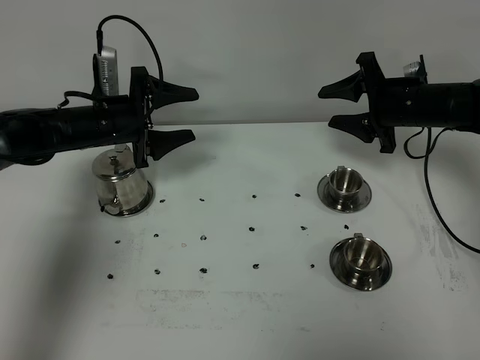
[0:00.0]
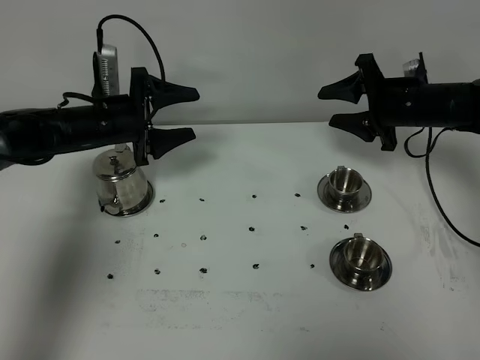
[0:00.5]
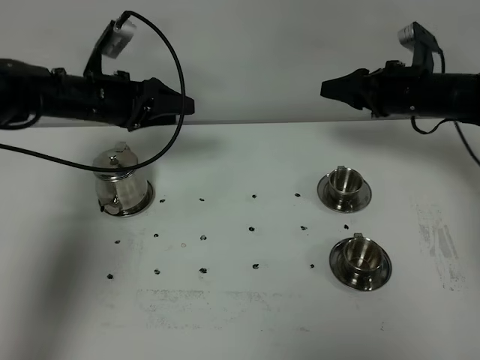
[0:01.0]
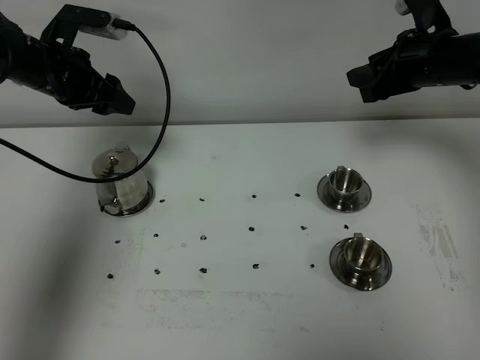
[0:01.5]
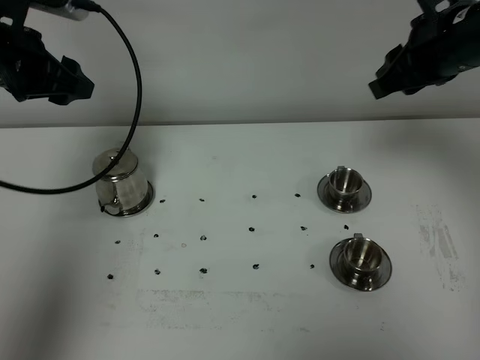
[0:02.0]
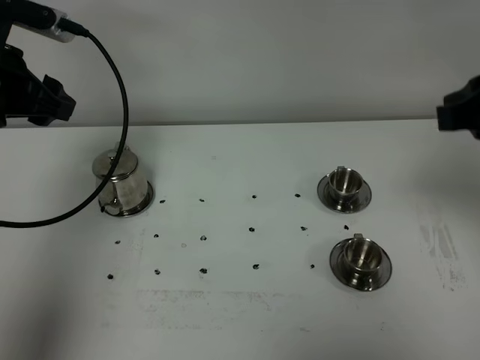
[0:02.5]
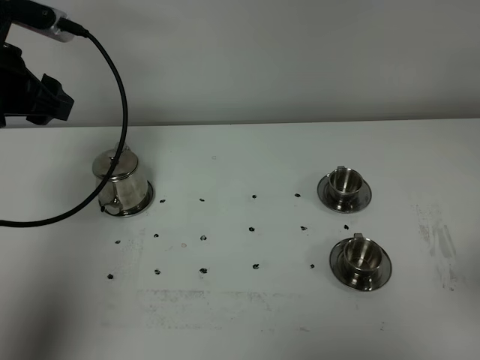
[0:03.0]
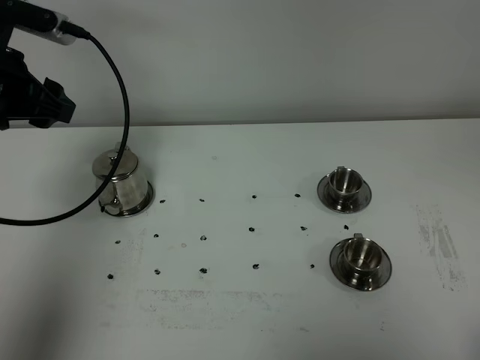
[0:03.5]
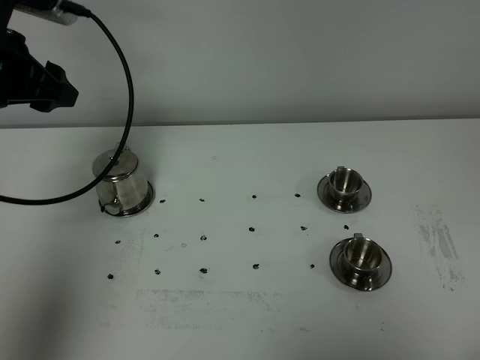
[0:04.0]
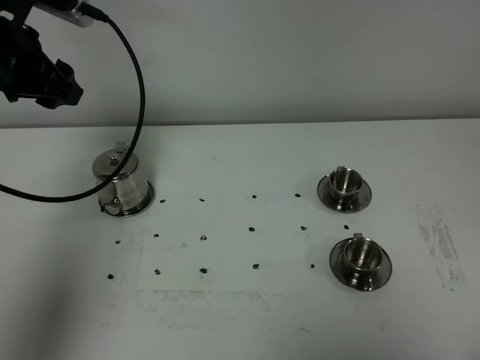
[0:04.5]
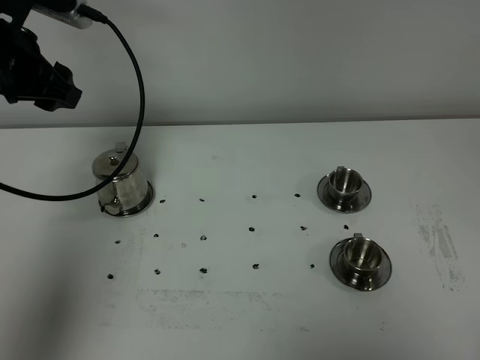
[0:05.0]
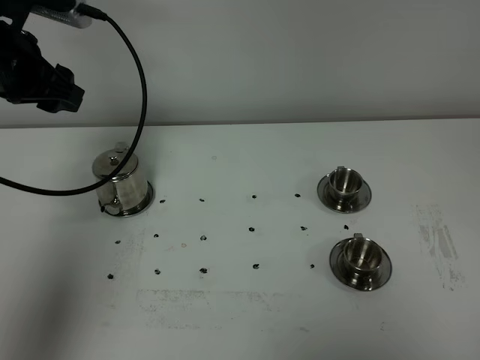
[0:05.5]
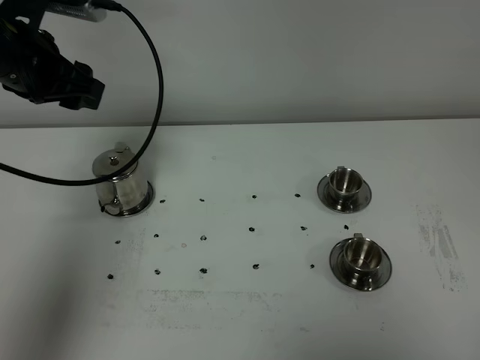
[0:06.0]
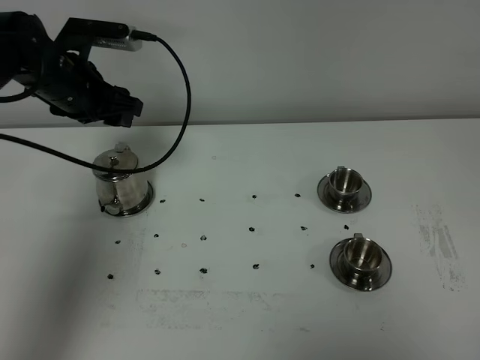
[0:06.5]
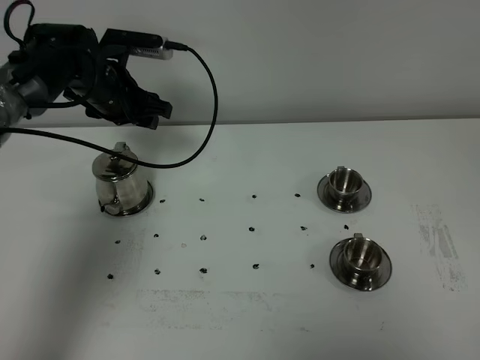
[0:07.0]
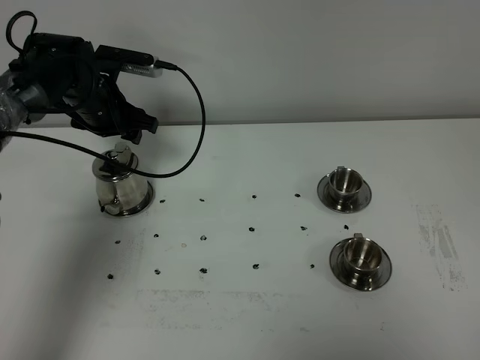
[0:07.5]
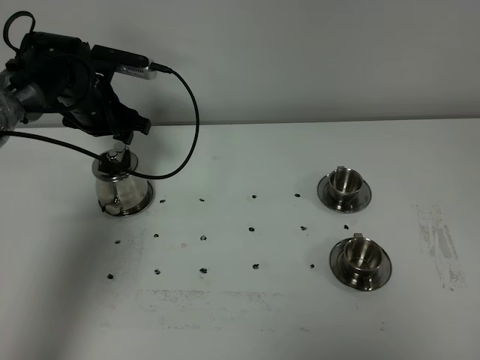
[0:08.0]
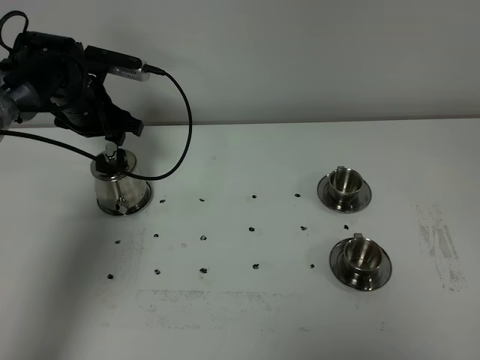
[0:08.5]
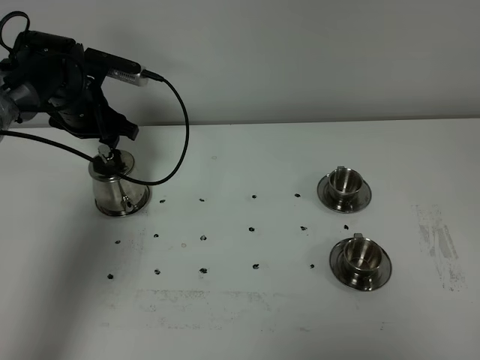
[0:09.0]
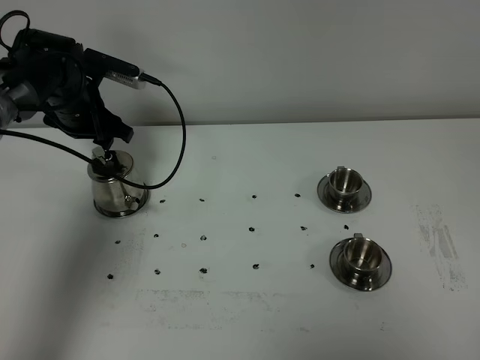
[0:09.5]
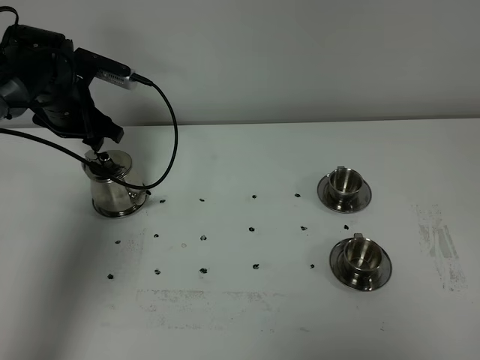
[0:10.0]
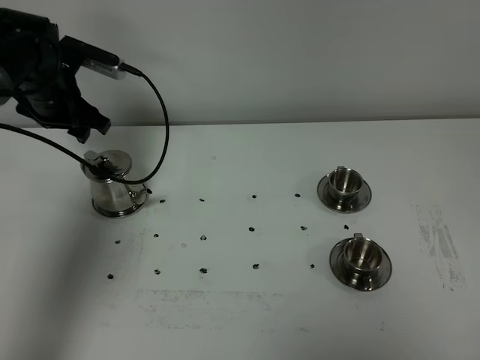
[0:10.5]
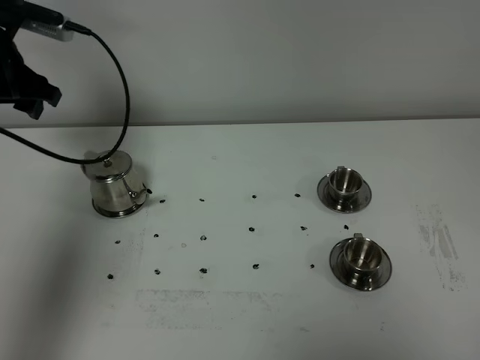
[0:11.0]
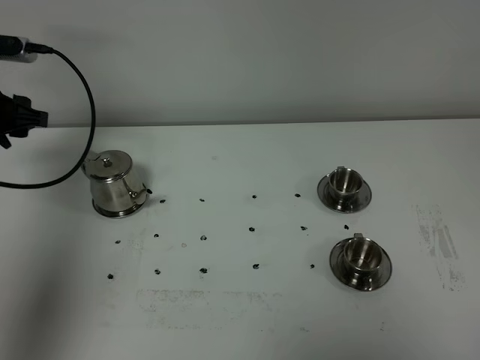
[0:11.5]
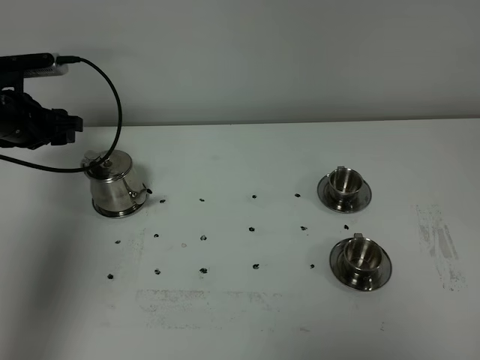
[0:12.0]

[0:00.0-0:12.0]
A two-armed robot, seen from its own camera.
Task of the whole recording: grasp the stainless steel teapot and pour the tea into the two stainless steel teacups one by one, put the stainless steel teapot back in its original place.
0:00.0 to 0:02.0: Both grippers travel together upward and backward, about 20 cm. The right gripper closes up.
0:02.0 to 0:04.0: The right gripper shifts approximately 40 cm backward, and closes up.
0:04.0 to 0:06.0: There are only small adjustments of the grippers.
0:06.0 to 0:08.0: The left gripper is displaced downward and forward by about 15 cm.
0:08.0 to 0:10.0: The grippers make only small movements.
0:10.0 to 0:12.0: The left gripper is displaced to the left by roughly 5 cm, and reaches approximately 10 cm upward, then returns.

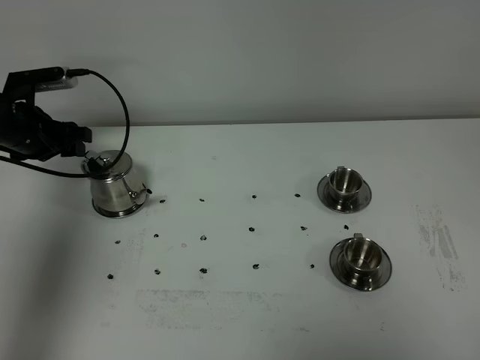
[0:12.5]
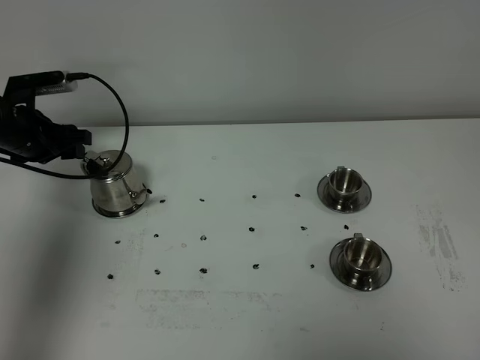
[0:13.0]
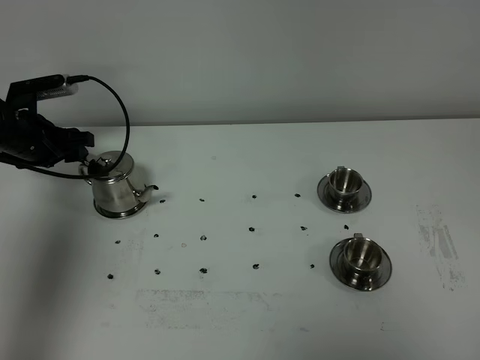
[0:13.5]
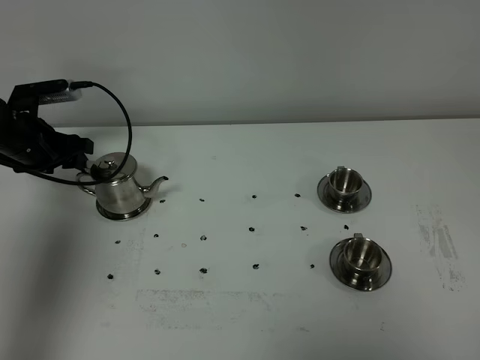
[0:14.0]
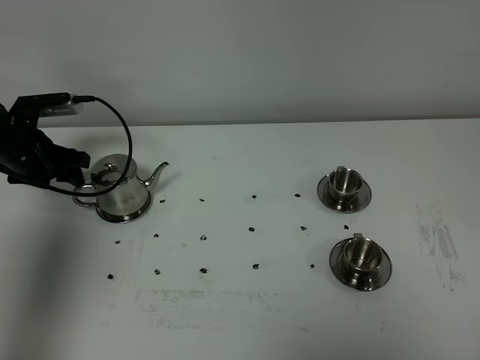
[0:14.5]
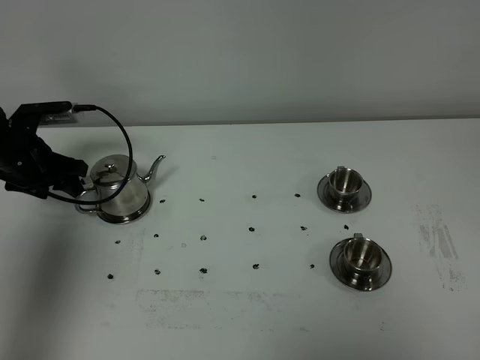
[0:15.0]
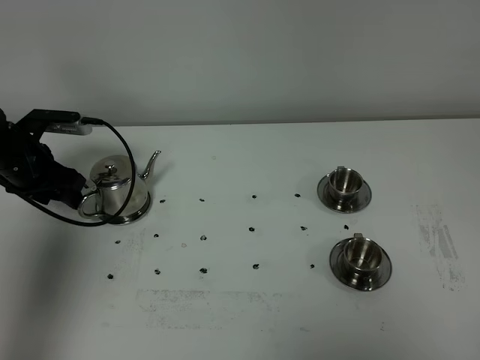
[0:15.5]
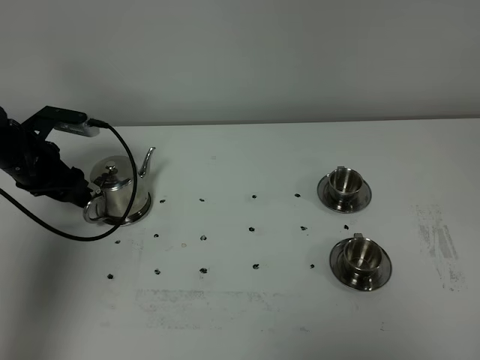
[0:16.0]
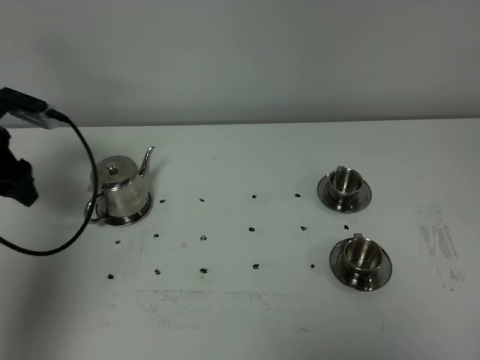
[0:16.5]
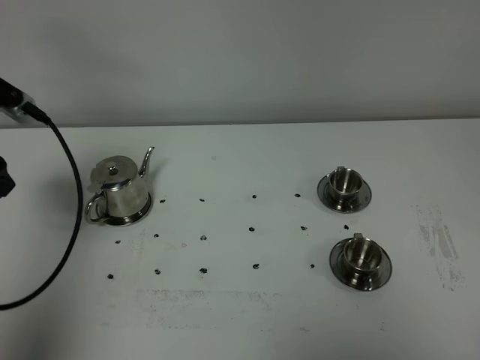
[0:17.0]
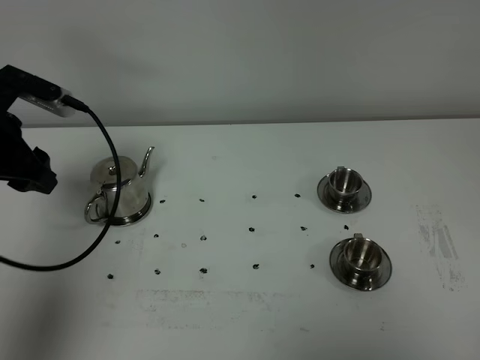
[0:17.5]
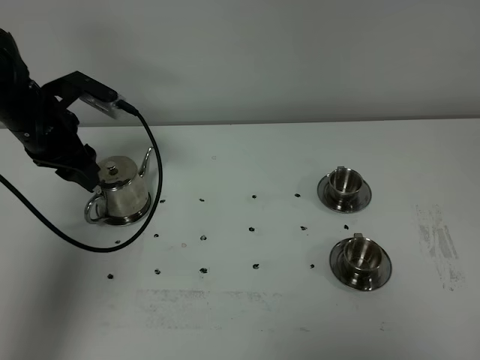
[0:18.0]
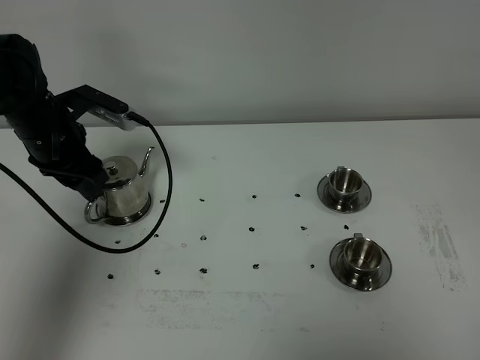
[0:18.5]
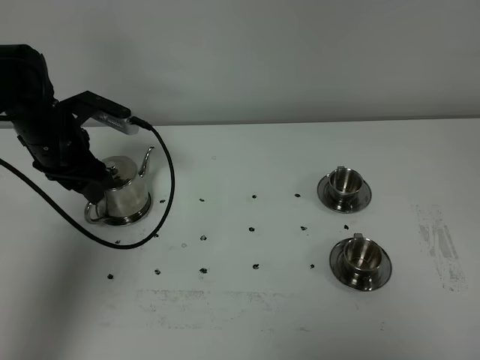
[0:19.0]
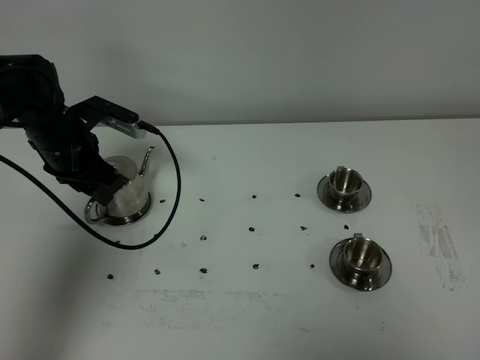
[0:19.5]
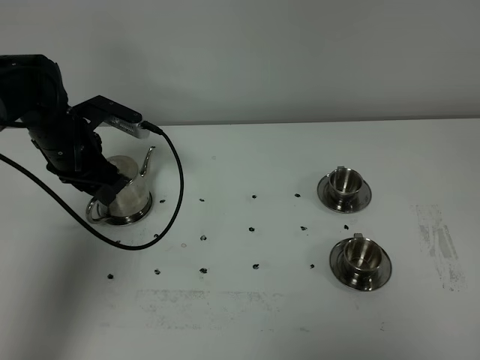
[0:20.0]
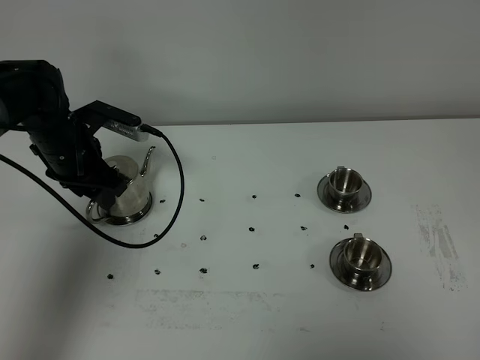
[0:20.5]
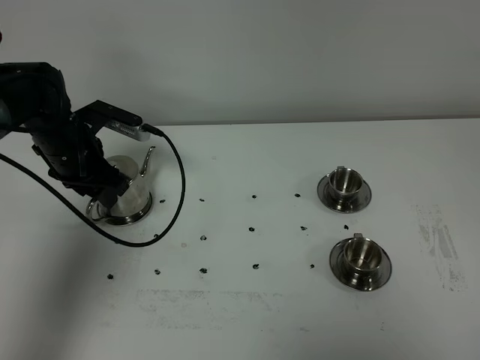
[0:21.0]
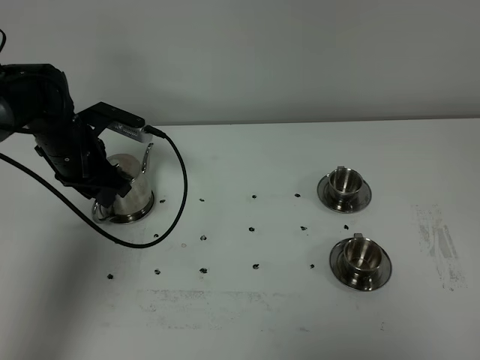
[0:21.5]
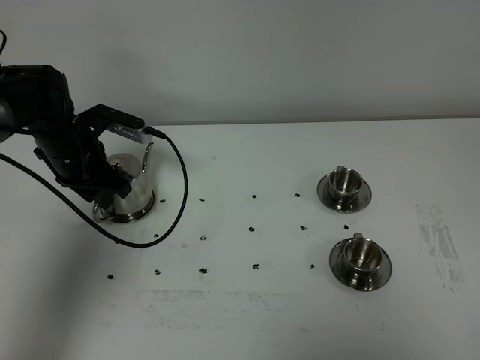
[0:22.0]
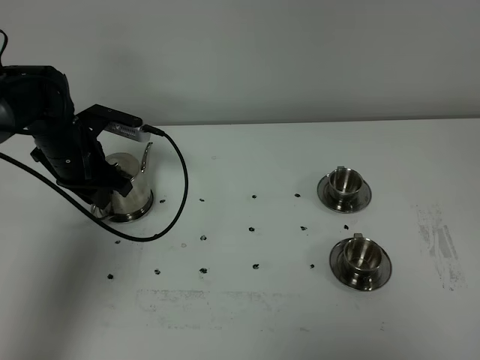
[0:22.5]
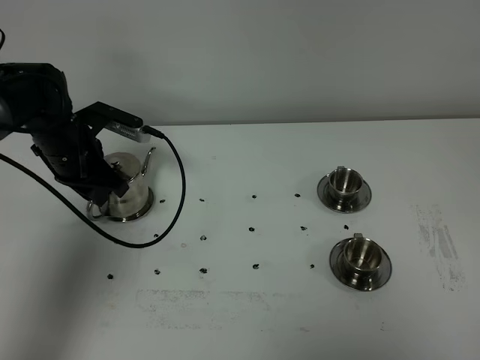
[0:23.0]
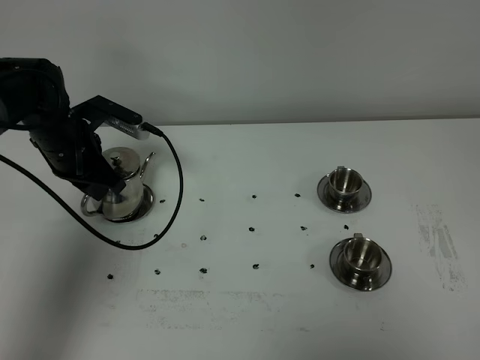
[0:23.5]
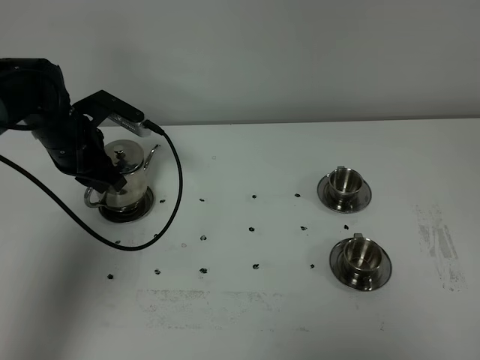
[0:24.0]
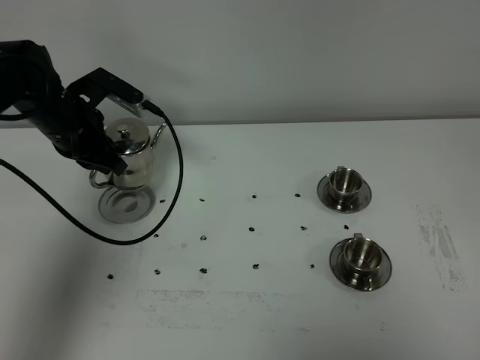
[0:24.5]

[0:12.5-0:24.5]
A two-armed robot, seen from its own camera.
Task of the whole recording: grasp the stainless steel teapot and pour the tea into the two stainless steel teacups one by one, put the stainless steel teapot back in its original place.
Step, 0:12.5 to 0:24.0: Pick up the teapot with the left gripper.
0:12.5 to 0:14.5: The grippers move only a little.
0:14.5 to 0:16.5: The left gripper moves upward and backward, roughly 10 cm.
0:16.5 to 0:18.5: The left gripper travels to the right by some 10 cm, and goes backward and returns, approximately 10 cm each way.
0:18.5 to 0:20.5: There are only small adjustments of the grippers.
0:20.5 to 0:22.5: The left gripper closes.
0:22.5 to 0:24.5: The left gripper is displaced upward by roughly 5 cm.

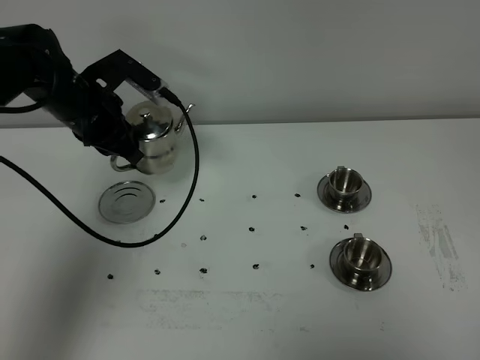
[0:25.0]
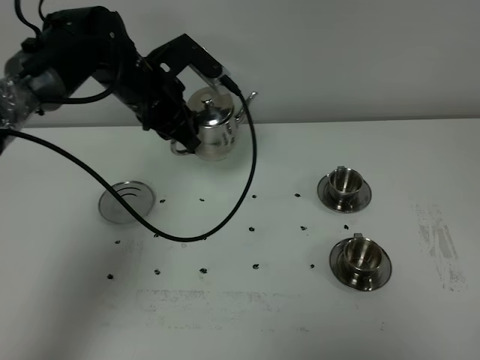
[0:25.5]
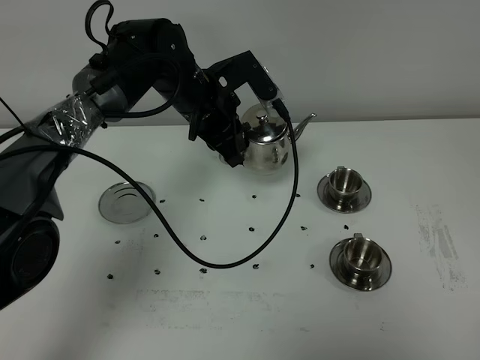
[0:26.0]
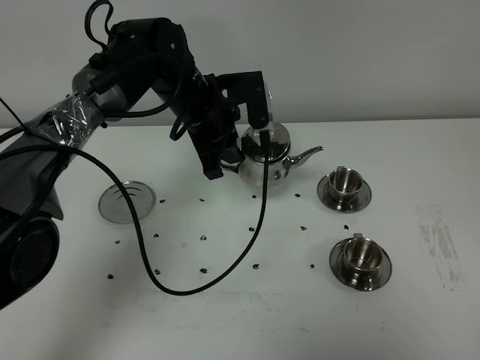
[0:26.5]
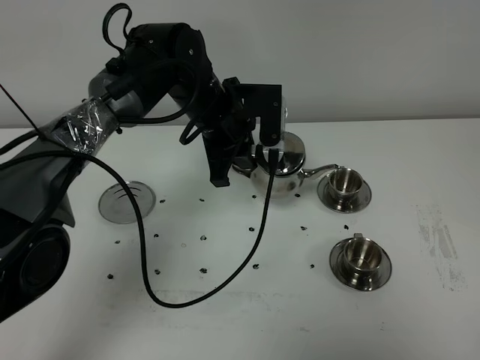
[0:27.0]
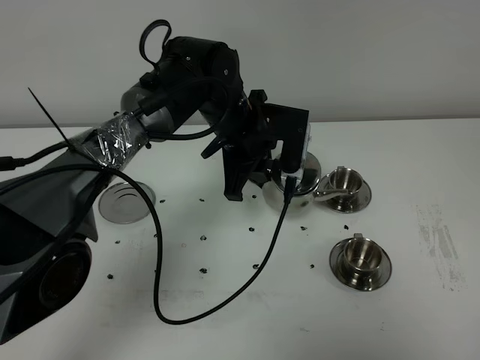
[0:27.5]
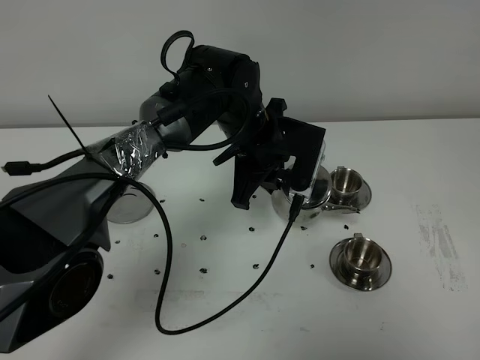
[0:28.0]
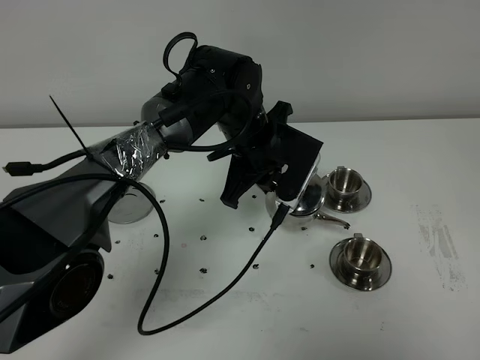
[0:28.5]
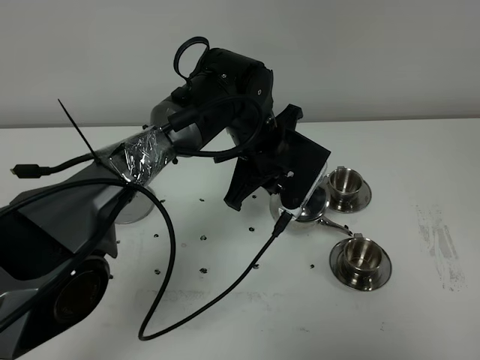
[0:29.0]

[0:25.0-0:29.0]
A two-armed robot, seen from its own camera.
Task of the whole recording: grasp the stainless steel teapot and pour the tea into the two stainless steel teacups one by one, put the stainless steel teapot back in its original place.
0:25.0 to 0:27.0: The left gripper goes some 15 cm to the right.
0:27.0 to 0:29.0: The left gripper heads to the right, covering some 5 cm.
